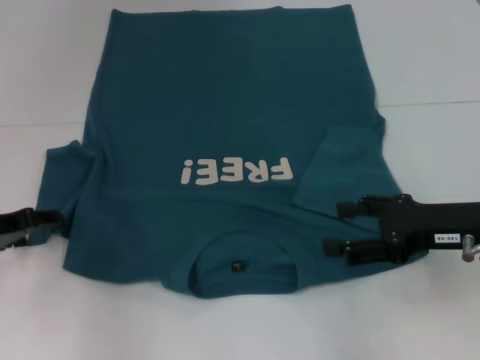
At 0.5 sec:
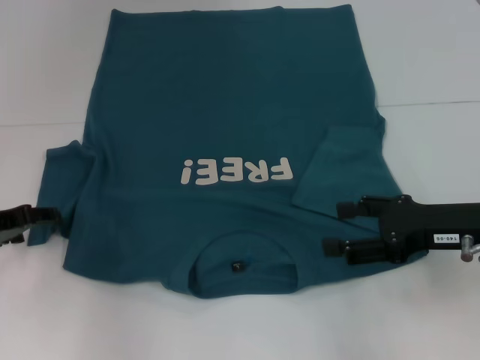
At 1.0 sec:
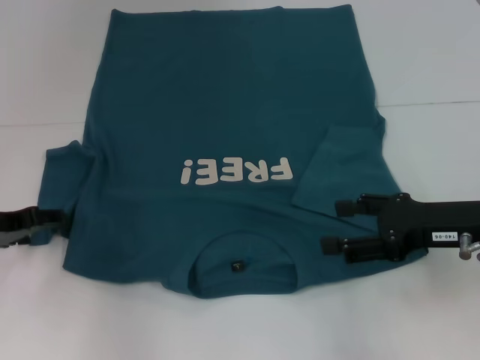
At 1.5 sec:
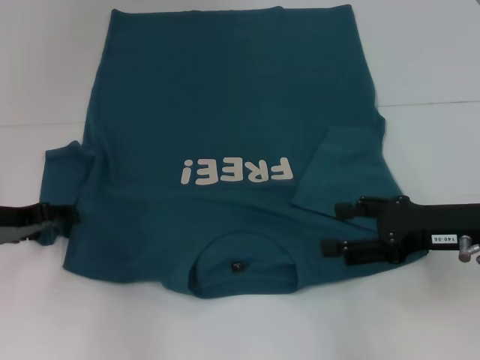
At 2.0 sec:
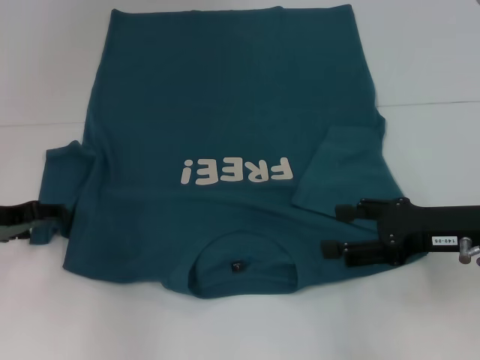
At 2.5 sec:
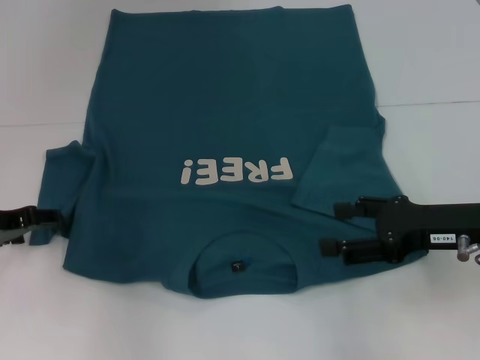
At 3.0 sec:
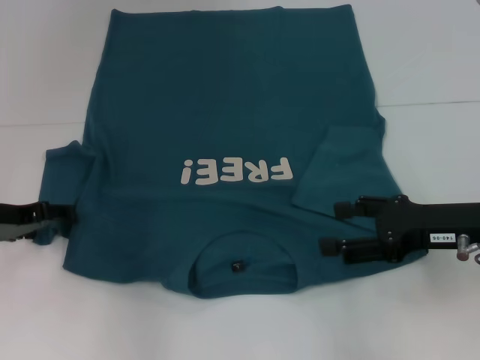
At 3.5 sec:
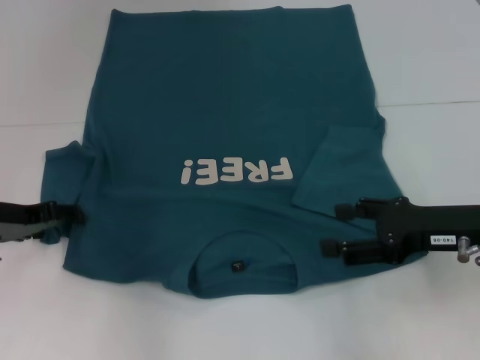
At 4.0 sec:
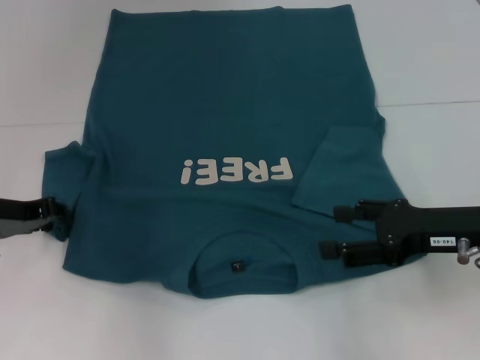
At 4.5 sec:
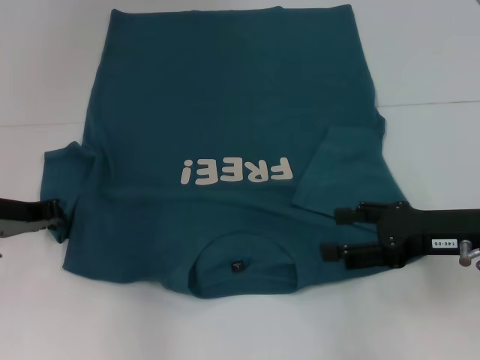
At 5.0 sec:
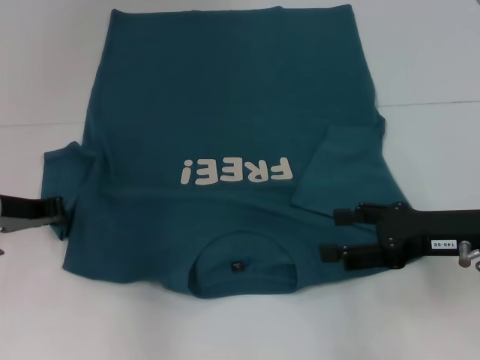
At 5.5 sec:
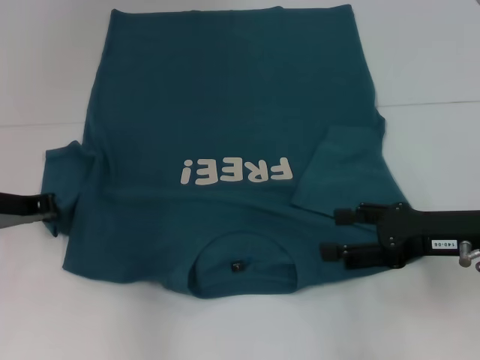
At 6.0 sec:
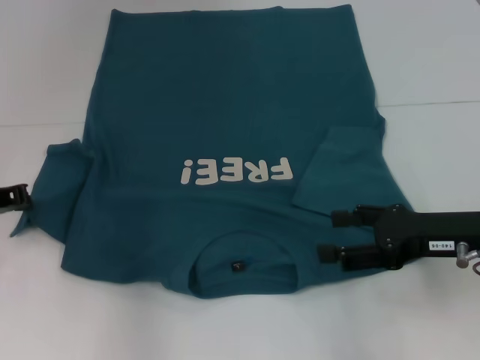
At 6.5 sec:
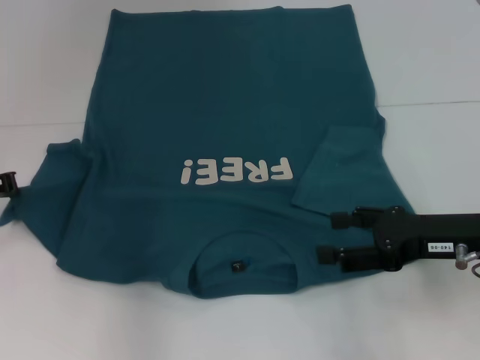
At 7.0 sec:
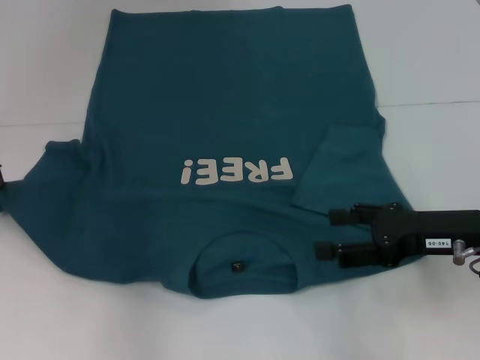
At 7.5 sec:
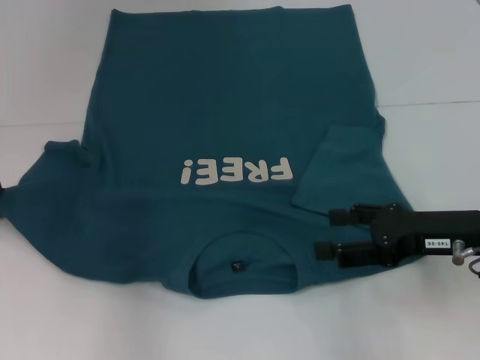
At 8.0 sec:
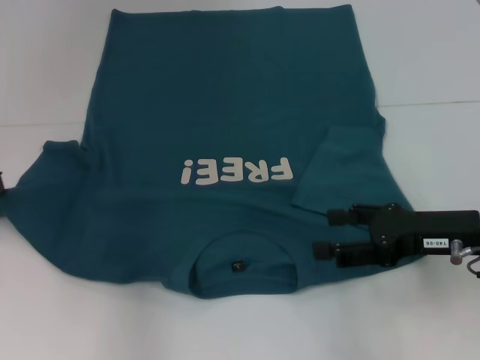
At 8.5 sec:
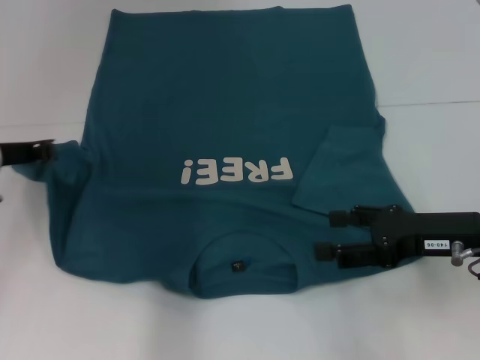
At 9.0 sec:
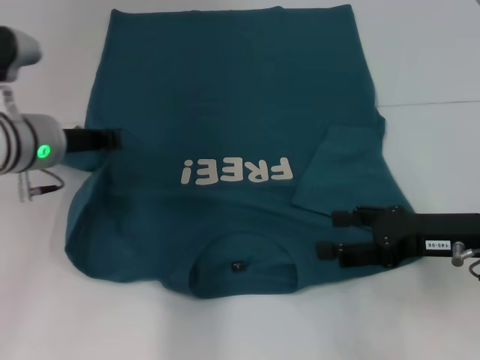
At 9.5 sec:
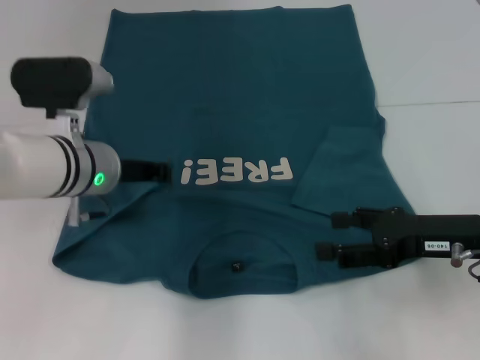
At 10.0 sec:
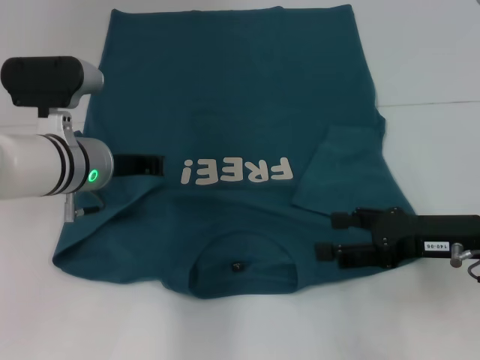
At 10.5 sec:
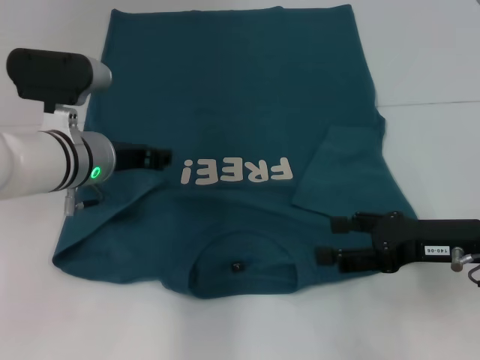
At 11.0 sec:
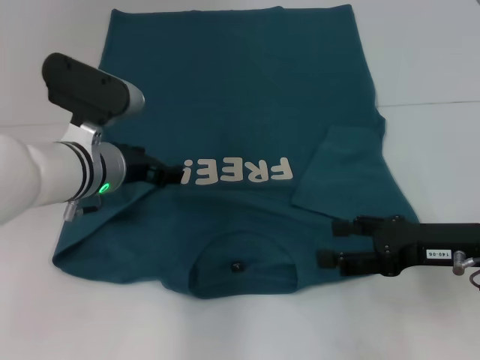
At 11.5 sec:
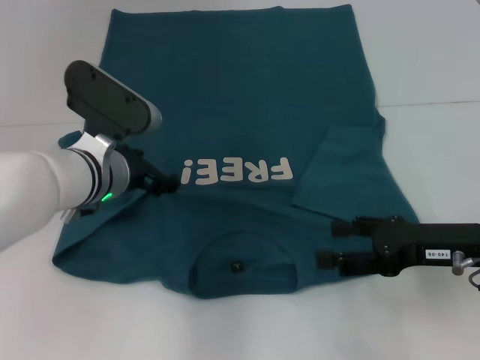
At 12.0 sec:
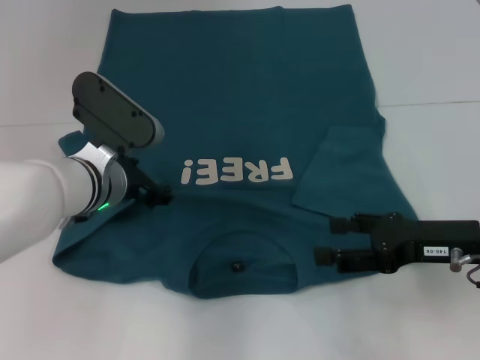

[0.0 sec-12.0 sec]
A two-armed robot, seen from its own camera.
Step, 0.0 sec to 10.5 sec: Fold the bottom left sleeve with your left hand.
0.0 sec to 4.0 sec: The grippers make only small movements.
4.0 sec to 6.0 sec: The left gripper closes up.
6.0 sec to 8.0 sec: The grippers stay close to where they were, moving slightly.
8.0 sec to 10.0 sec: The left gripper is displaced to the right by roughly 15 cm.
10.0 sec to 12.0 sec: The left gripper opens its fingers.

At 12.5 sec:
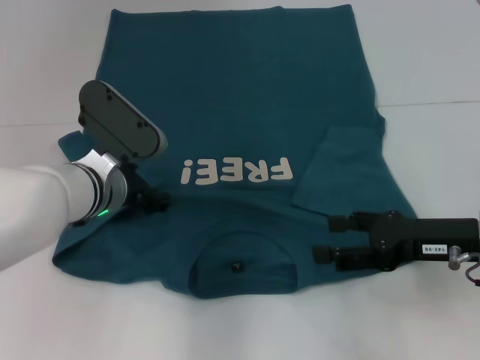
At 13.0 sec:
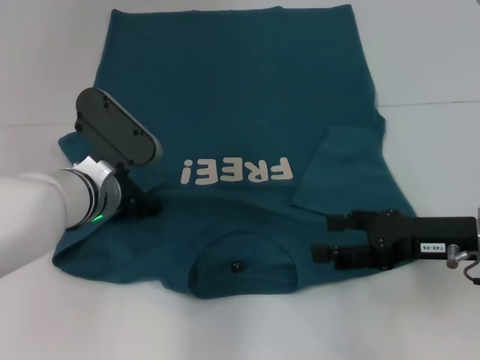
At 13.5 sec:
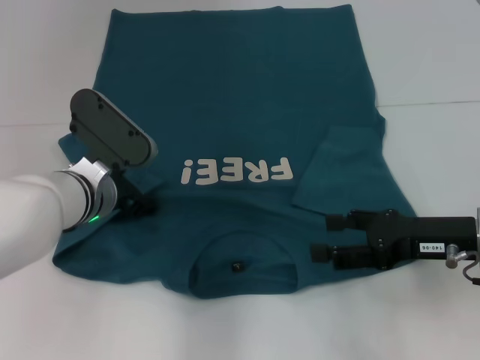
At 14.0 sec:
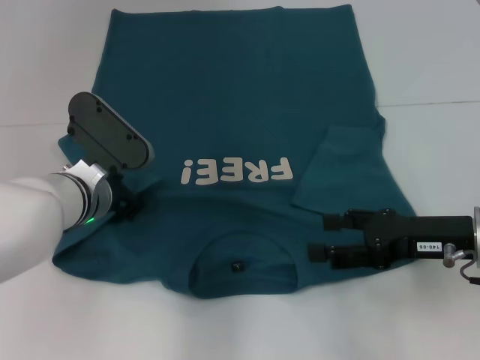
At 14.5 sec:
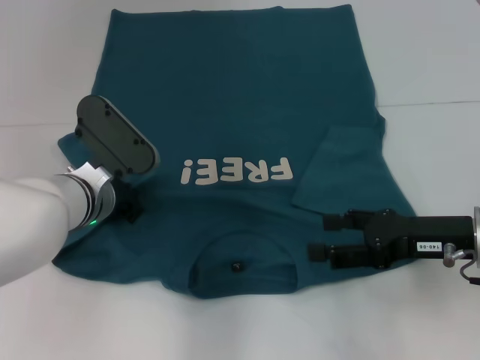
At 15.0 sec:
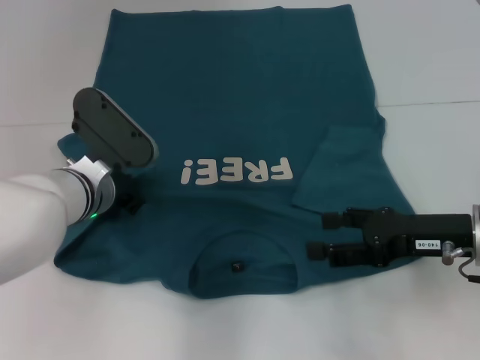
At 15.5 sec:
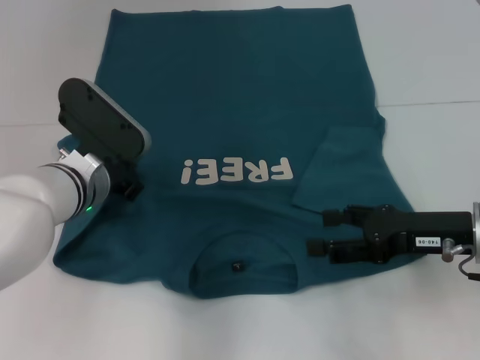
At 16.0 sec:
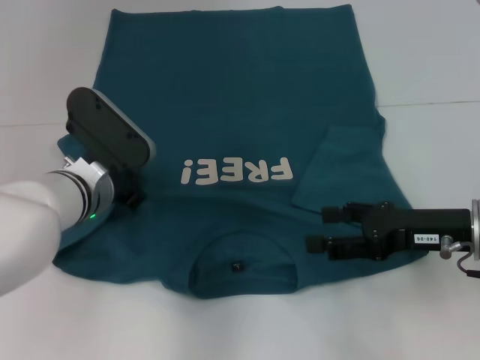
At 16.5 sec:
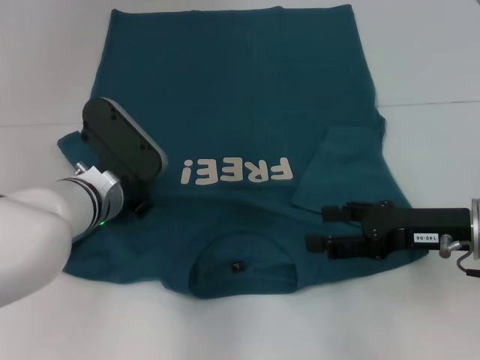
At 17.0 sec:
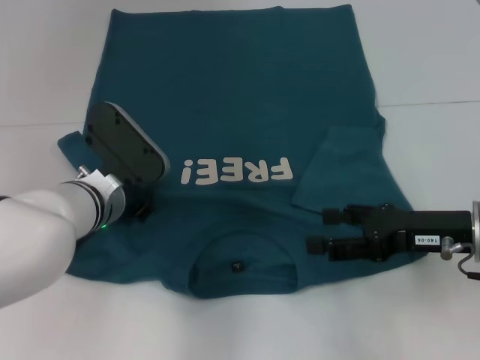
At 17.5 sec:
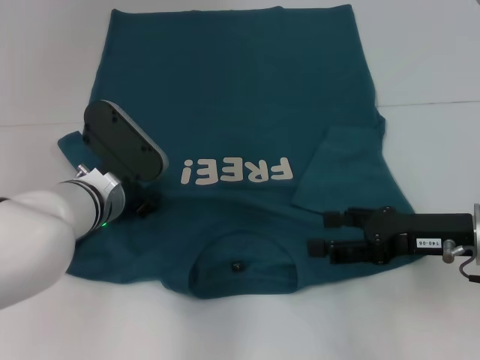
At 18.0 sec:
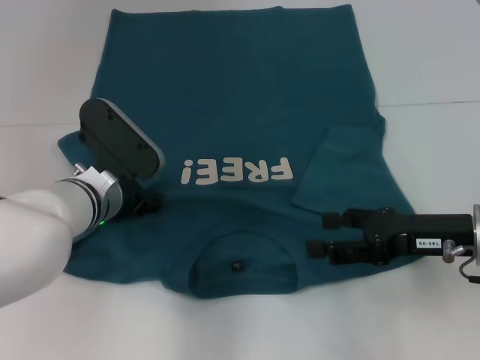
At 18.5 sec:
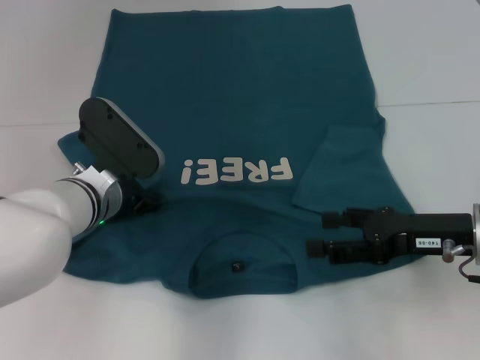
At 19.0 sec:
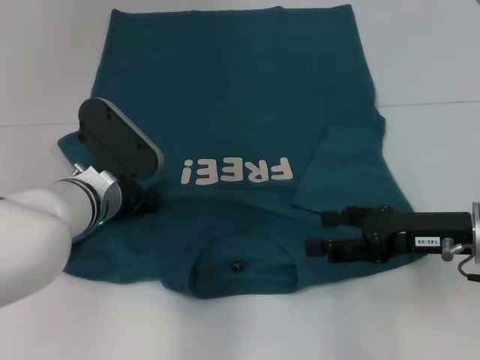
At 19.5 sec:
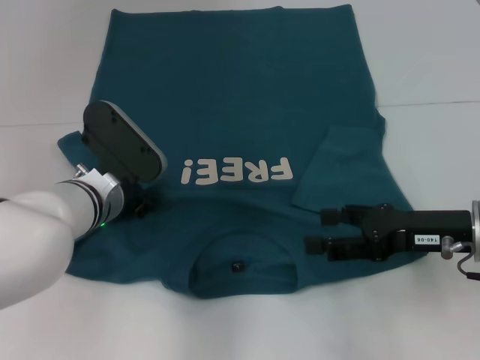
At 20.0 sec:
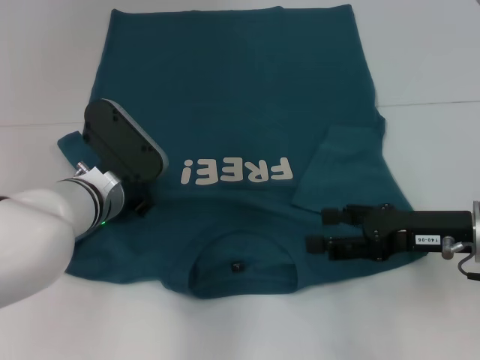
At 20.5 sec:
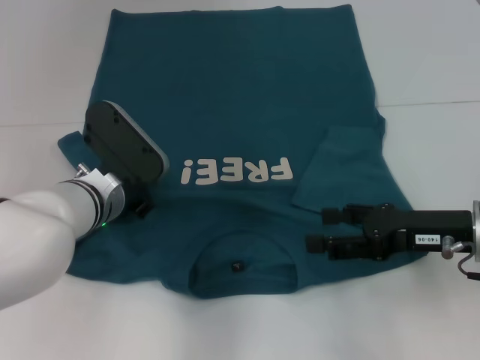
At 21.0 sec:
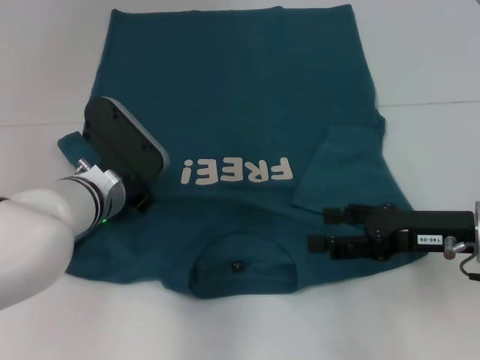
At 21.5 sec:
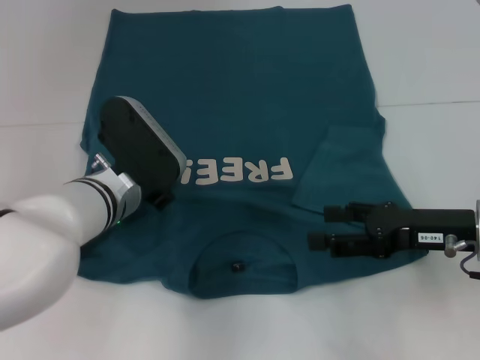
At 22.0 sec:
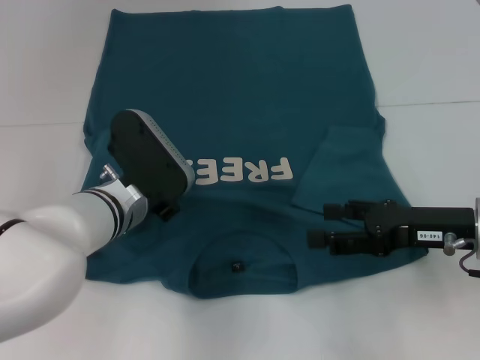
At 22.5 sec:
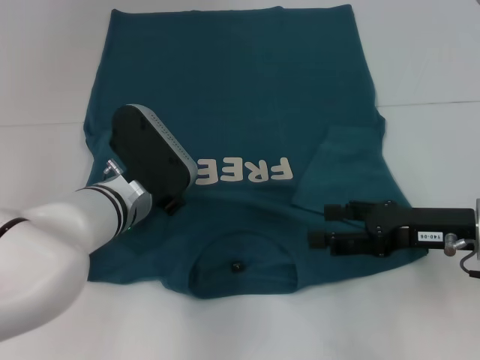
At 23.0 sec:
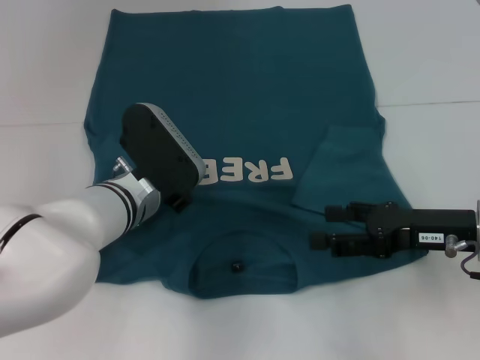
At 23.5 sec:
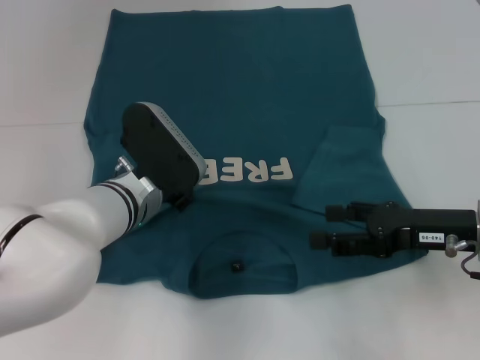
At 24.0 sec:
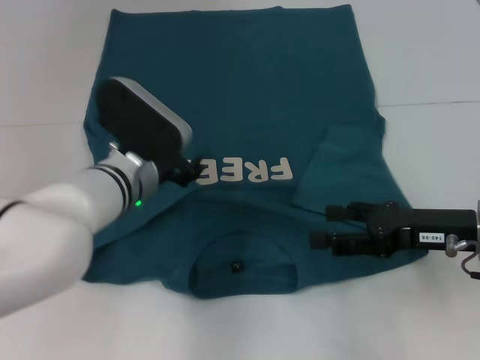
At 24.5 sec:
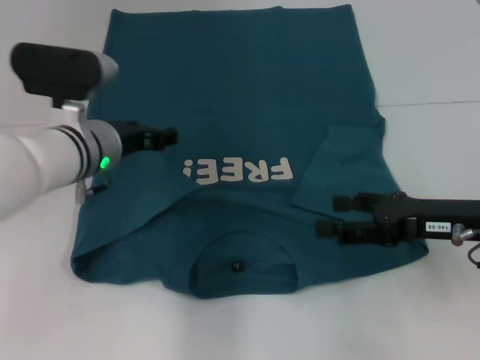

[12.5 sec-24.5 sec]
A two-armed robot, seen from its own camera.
12.5 sec to 14.5 sec: The left gripper closes its fingers.
14.5 sec to 16.5 sec: The grippers stay close to where they were, moving slightly.
16.5 sec to 18.5 sec: The left gripper opens up.
18.5 sec to 20.5 sec: The left gripper closes its fingers.
20.5 sec to 22.5 sec: The grippers make only small movements.
22.5 sec to 24.5 sec: The left gripper shifts by roughly 5 cm, and opens.

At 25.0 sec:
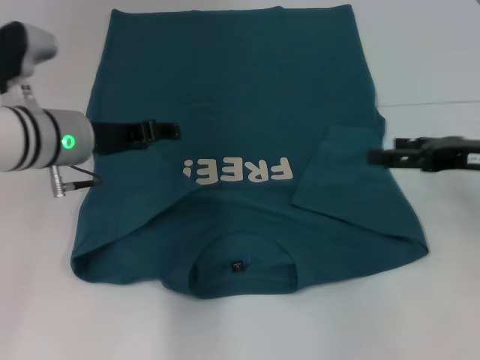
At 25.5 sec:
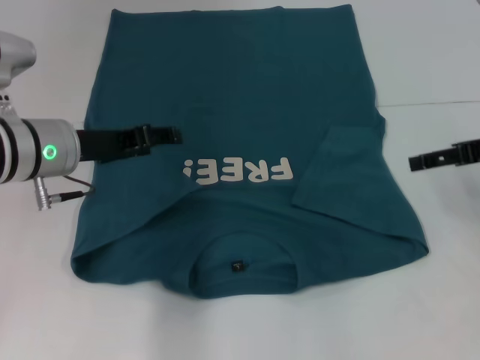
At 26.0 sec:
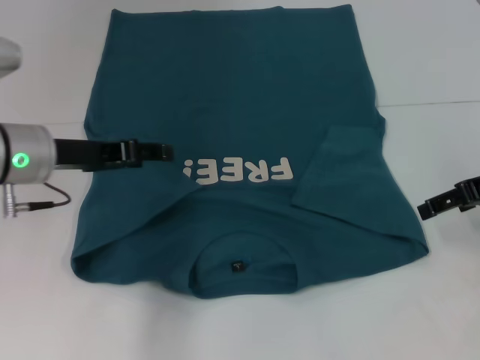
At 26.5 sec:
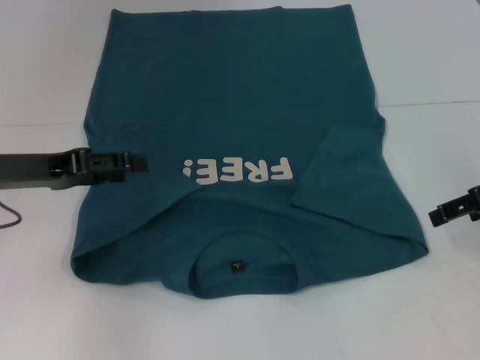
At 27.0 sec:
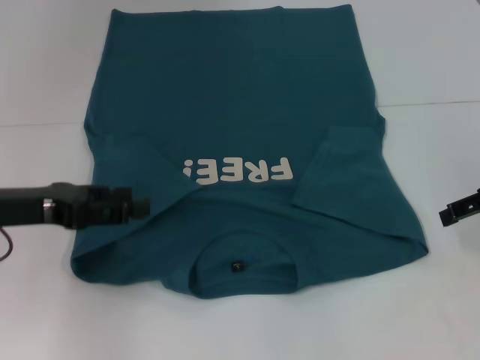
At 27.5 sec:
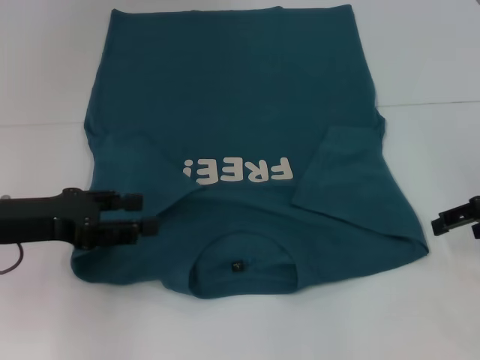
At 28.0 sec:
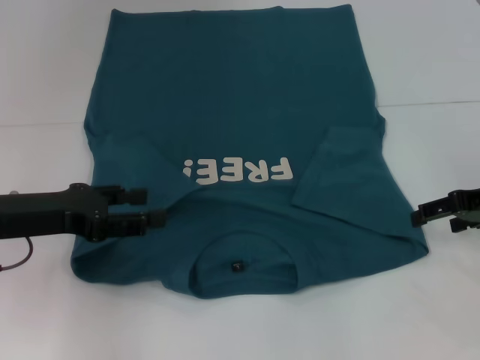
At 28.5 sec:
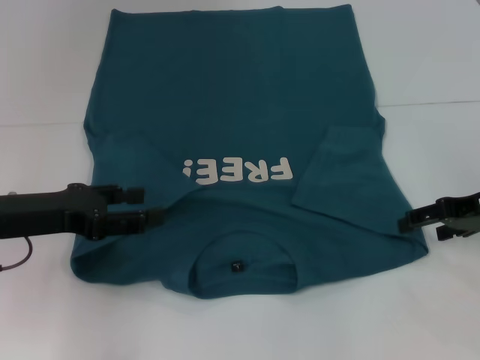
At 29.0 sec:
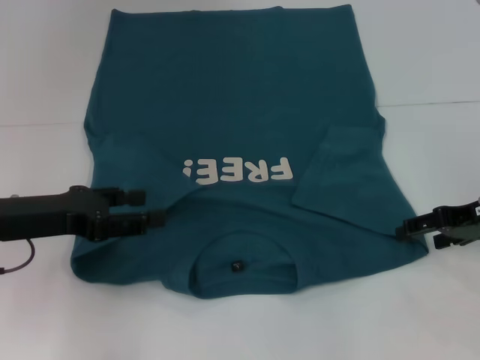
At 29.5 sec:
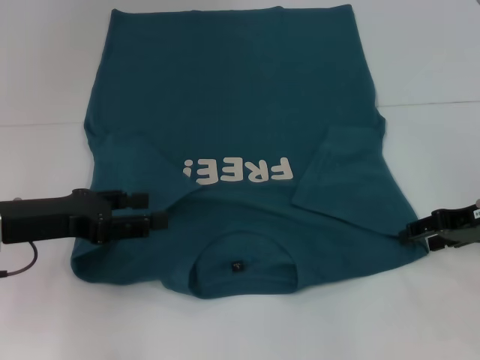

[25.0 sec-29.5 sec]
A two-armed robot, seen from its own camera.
25.0 sec to 27.0 sec: The left gripper travels to the left and backward by approximately 10 cm.
27.0 sec to 29.5 sec: The right gripper moves downward, about 5 cm.
